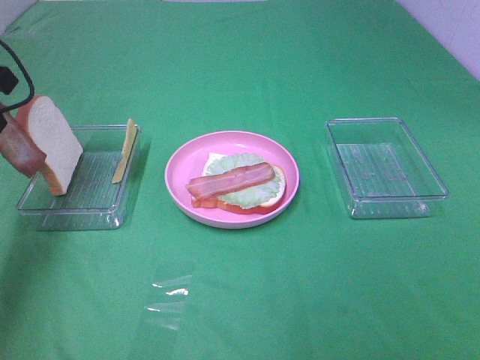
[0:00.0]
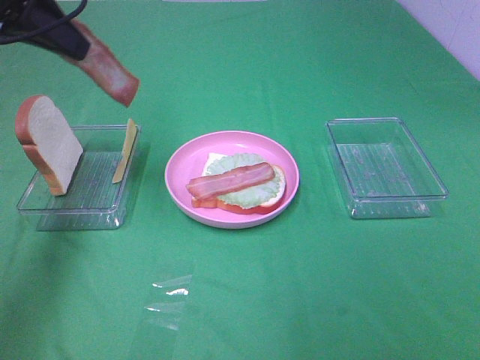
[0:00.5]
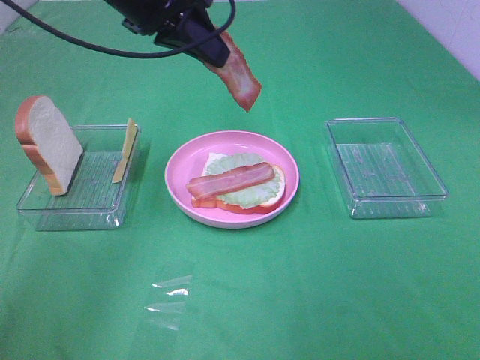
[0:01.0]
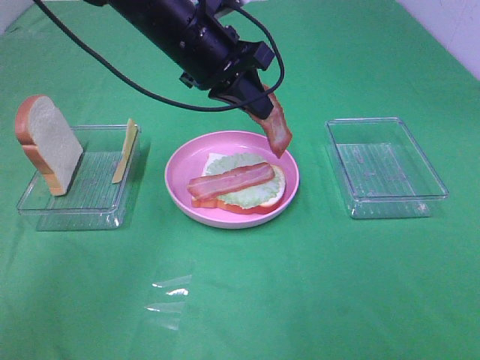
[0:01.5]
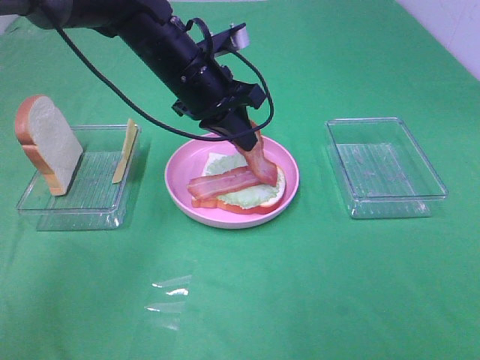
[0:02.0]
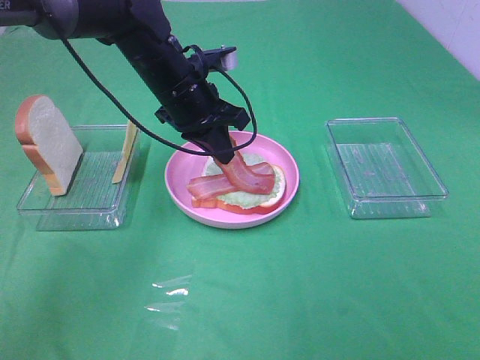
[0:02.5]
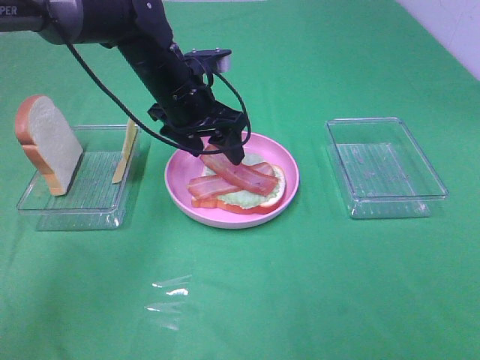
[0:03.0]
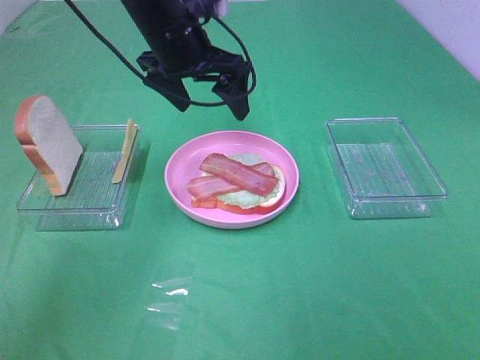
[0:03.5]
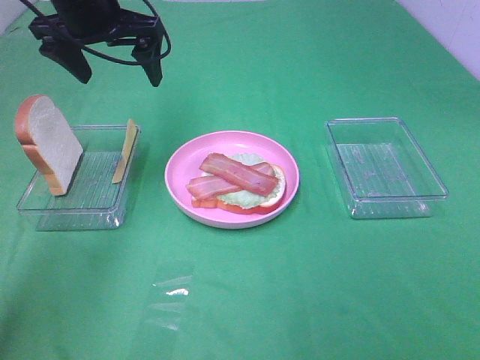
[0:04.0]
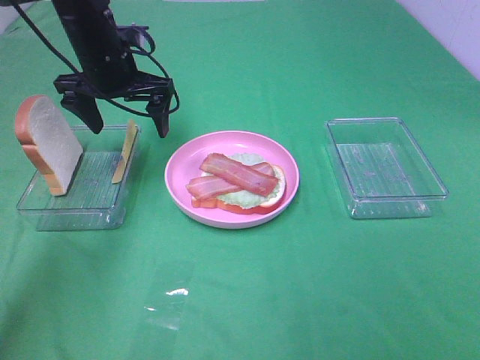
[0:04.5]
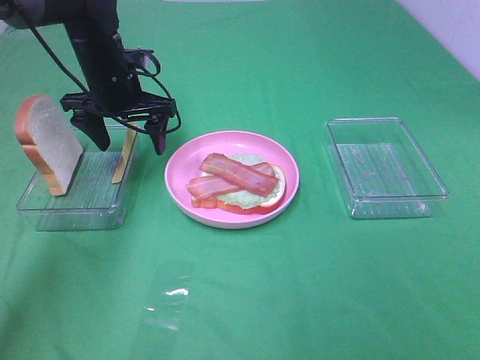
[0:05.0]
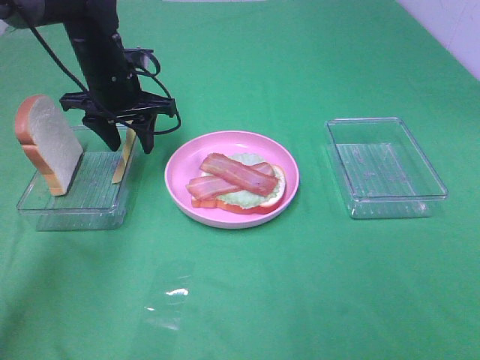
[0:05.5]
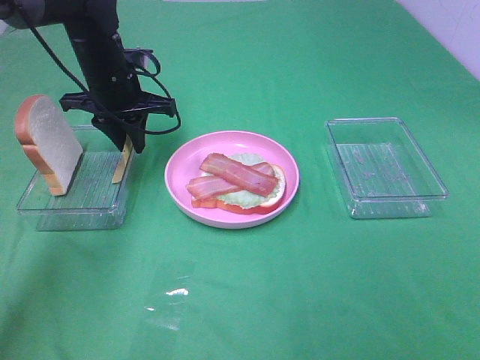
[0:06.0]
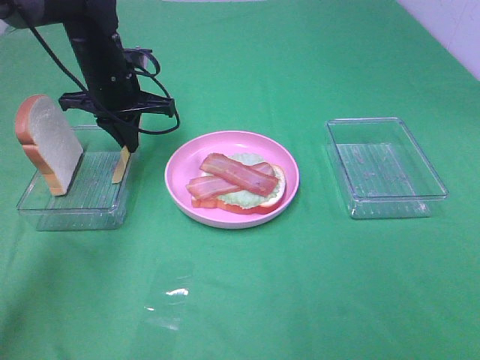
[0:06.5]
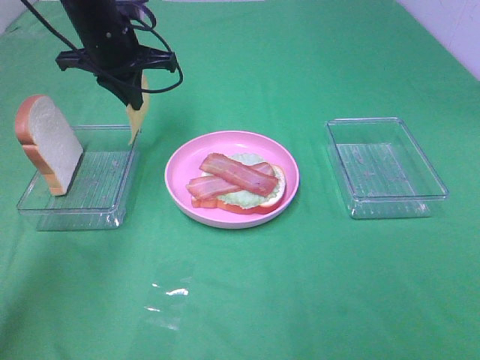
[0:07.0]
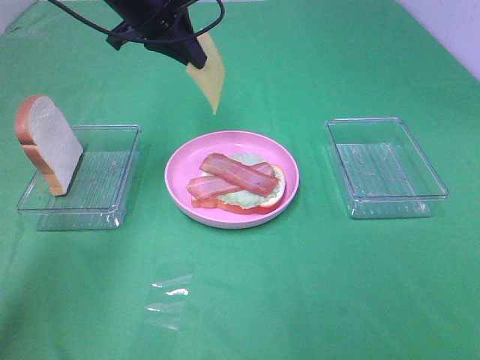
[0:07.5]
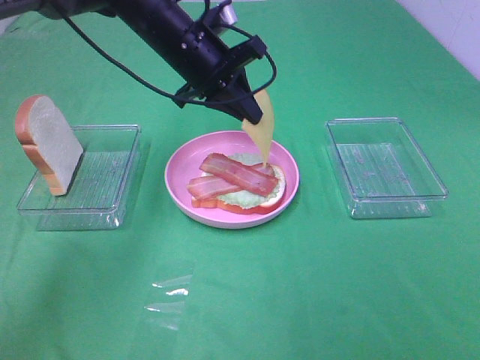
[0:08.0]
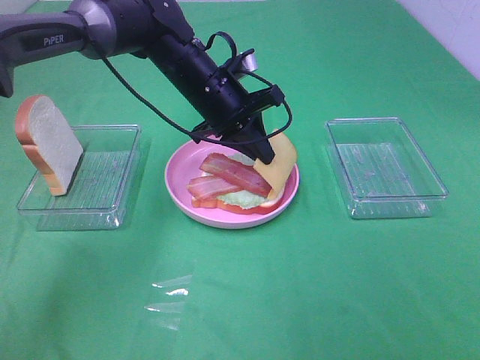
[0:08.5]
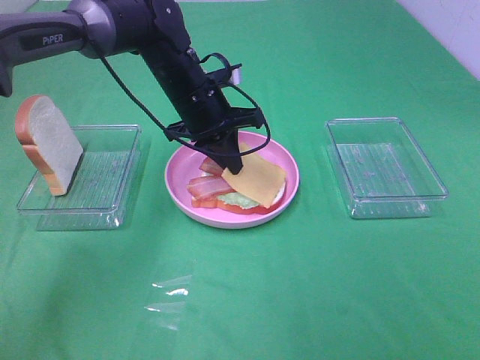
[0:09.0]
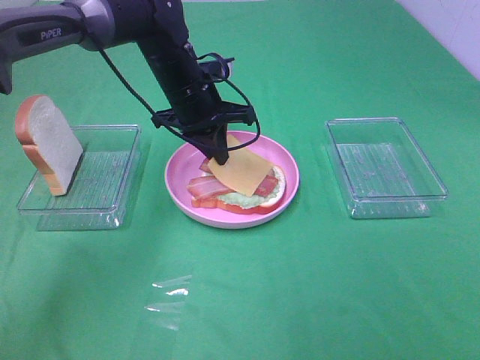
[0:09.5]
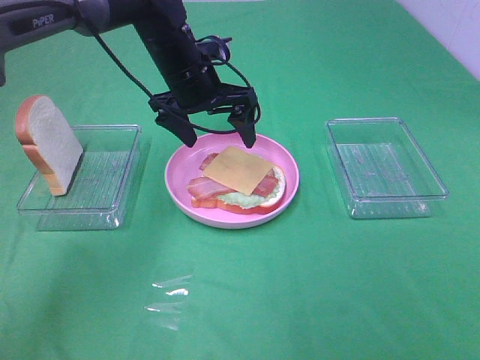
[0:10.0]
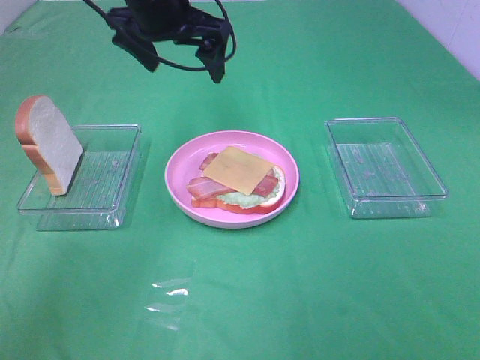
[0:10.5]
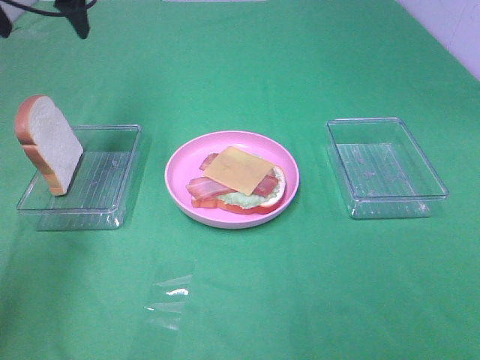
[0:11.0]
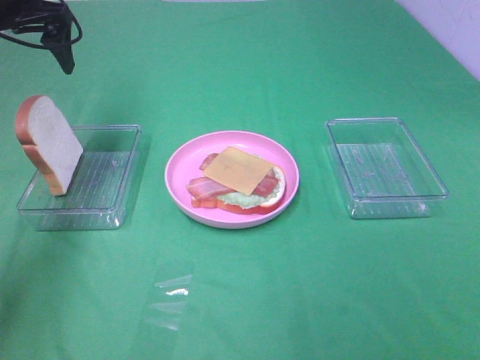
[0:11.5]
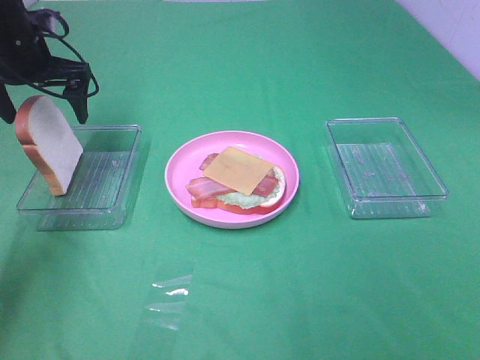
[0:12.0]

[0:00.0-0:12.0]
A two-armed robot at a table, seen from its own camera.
Task of the whole recording: Make sandwiches.
Step, 0:00.0 to 0:03.0: Left hand:place bacon on bacon.
Step, 0:03.5 to 0:06.5: Left hand:grab the cheese slice.
Step, 0:07.0 to 0:09.5: Left hand:place the cheese slice on top of the bacon.
0:00.0 to 0:02.0: The left gripper heads to the right, covering some 25 cm.
0:02.0 to 0:04.0: The left gripper travels to the left and upward by roughly 15 cm, and opens its fingers.
0:04.0 to 0:06.0: The left gripper moves downward, about 10 cm, and closes its fingers.
0:06.0 to 0:08.0: The left gripper shifts some 10 cm to the right, and travels upward and back again, approximately 10 cm each way.
0:08.0 to 0:10.0: The left gripper opens up.
0:10.0 to 0:12.0: The left gripper heads to the left, covering roughly 20 cm.

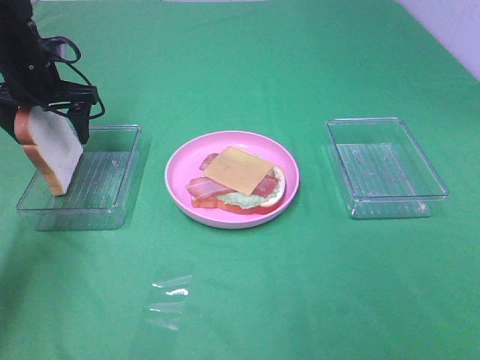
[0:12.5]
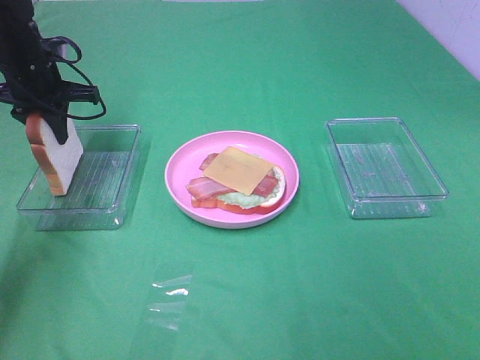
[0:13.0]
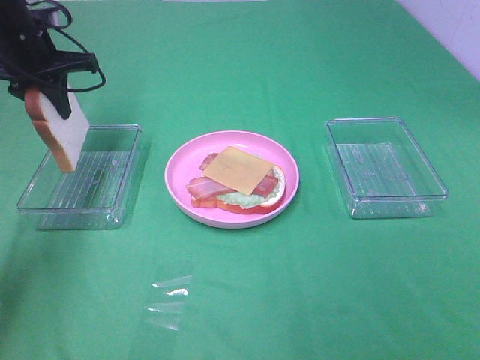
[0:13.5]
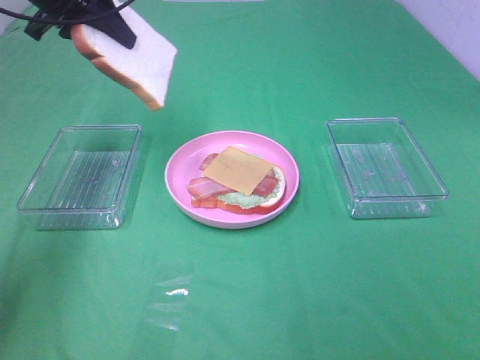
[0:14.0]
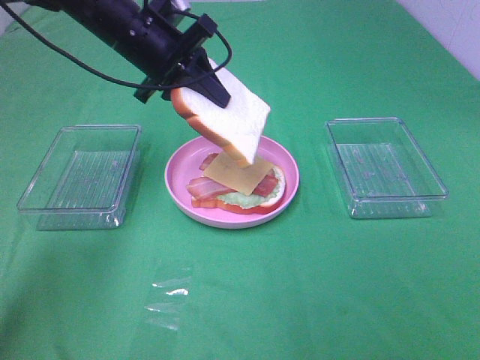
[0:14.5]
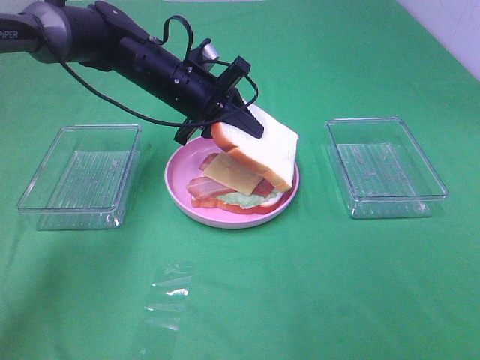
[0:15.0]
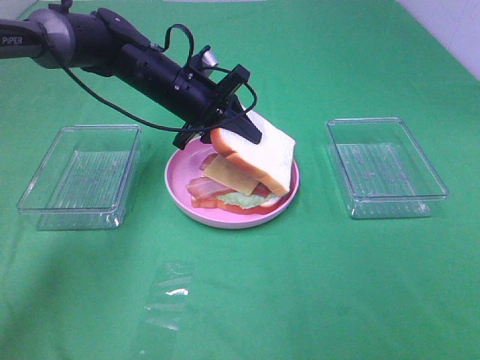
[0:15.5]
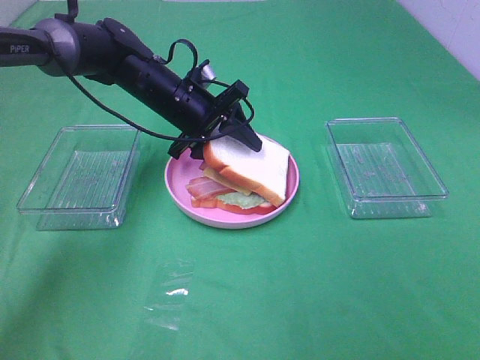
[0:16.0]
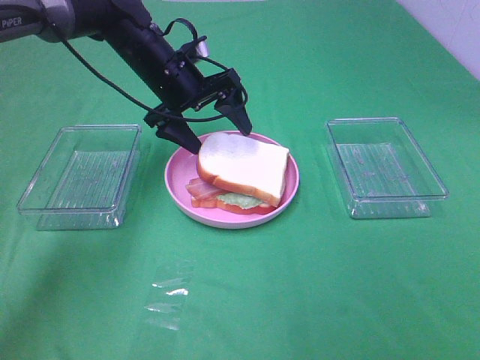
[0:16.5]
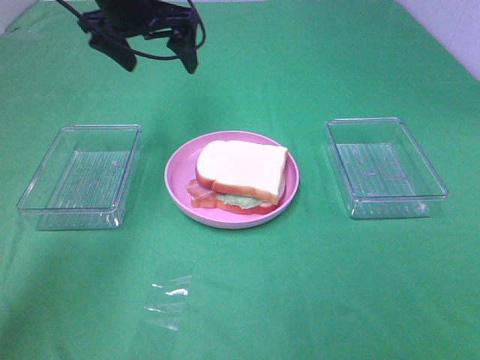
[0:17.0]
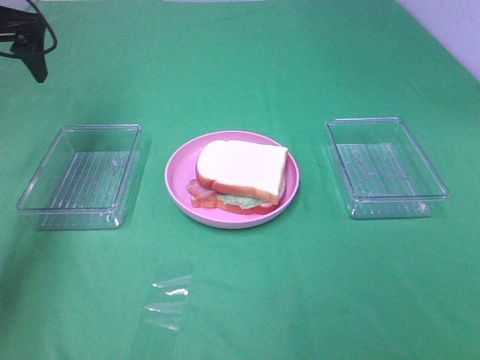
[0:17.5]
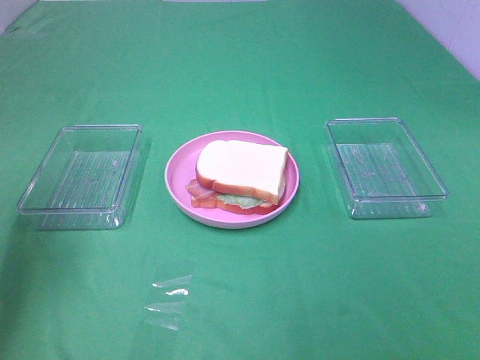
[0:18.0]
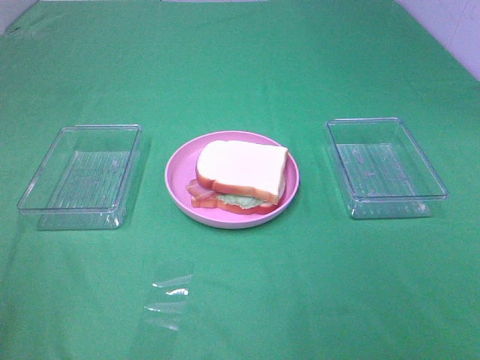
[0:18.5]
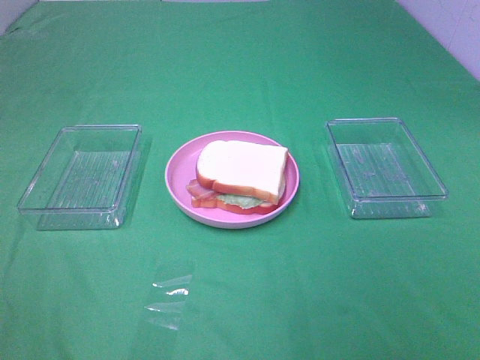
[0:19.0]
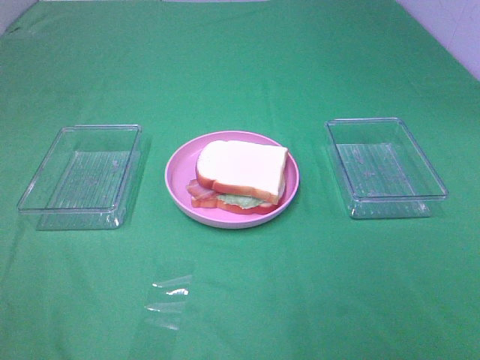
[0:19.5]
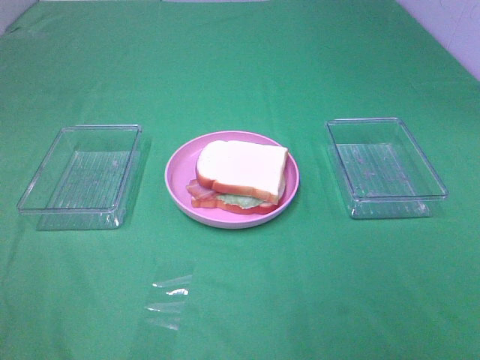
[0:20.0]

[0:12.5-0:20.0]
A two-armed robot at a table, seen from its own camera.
Task of the whole recording: Make sandwiches.
Step, 0:13.5 to 0:16.5: Left hand:place the bread slice on the cheese slice.
0:12.5 to 0:14.5: The left gripper goes some 15 cm to the right, and closes its fingers.
0:14.5 to 0:16.5: The left gripper opens up.
0:16.5 to 0:18.0: The left gripper travels to the left, backward and upward by approximately 30 cm.
0:18.0 to 0:20.0: The left gripper goes some 25 cm backward.

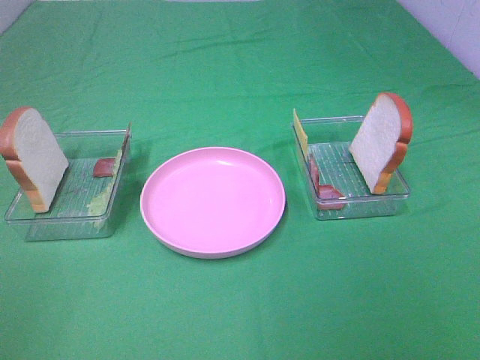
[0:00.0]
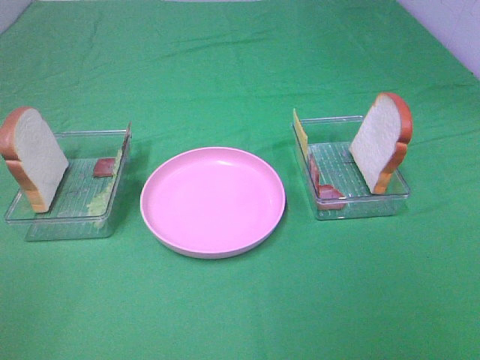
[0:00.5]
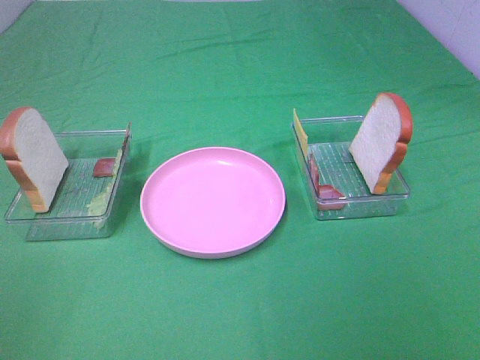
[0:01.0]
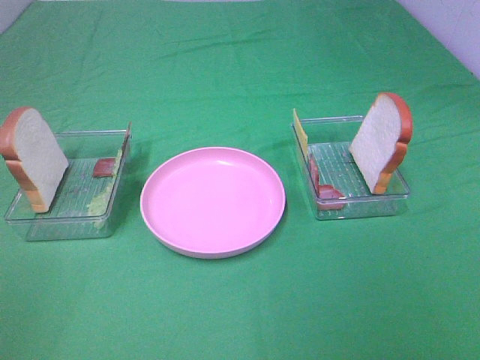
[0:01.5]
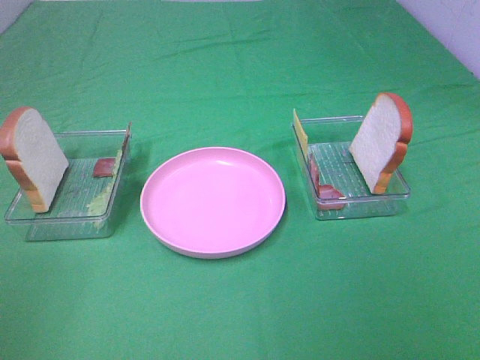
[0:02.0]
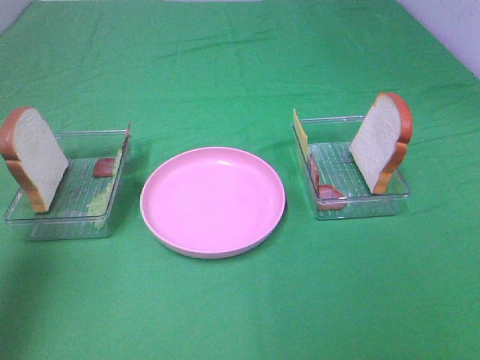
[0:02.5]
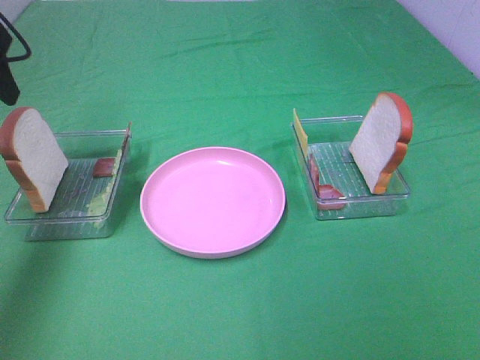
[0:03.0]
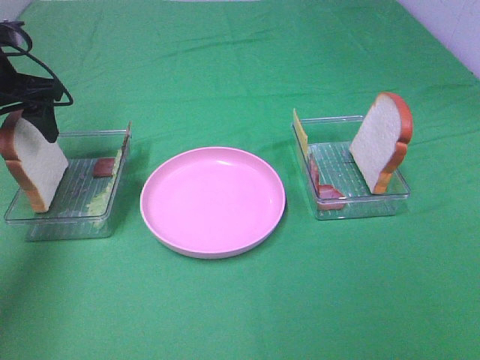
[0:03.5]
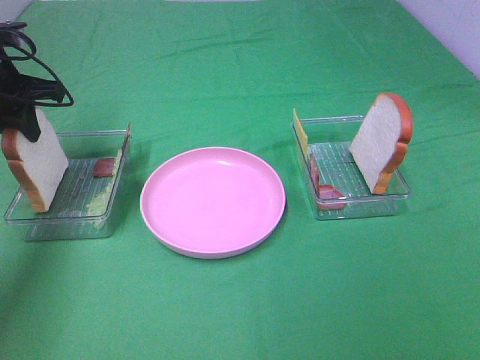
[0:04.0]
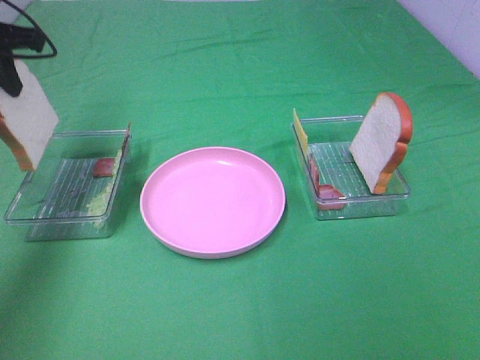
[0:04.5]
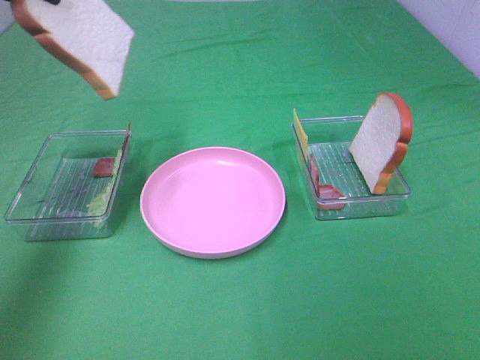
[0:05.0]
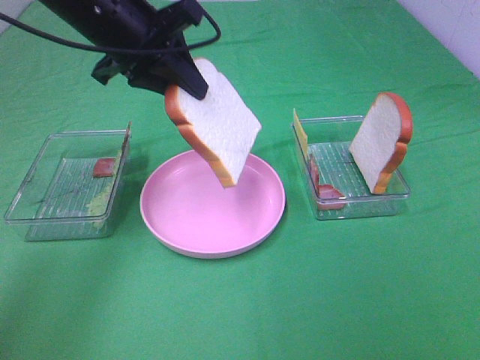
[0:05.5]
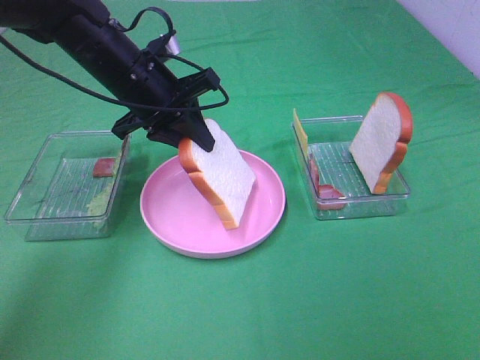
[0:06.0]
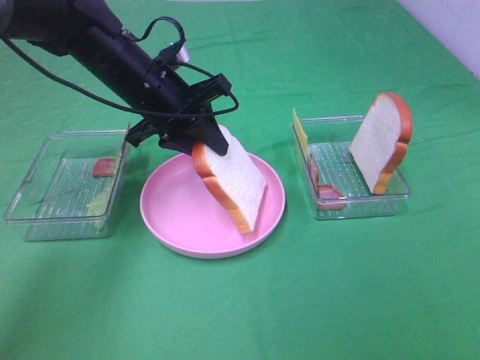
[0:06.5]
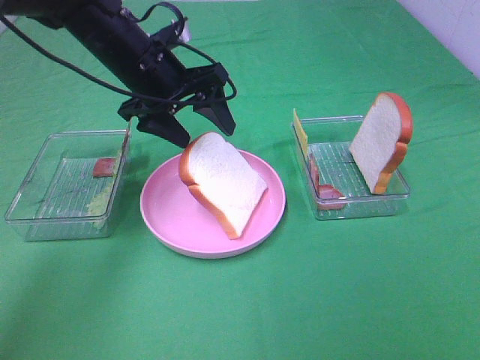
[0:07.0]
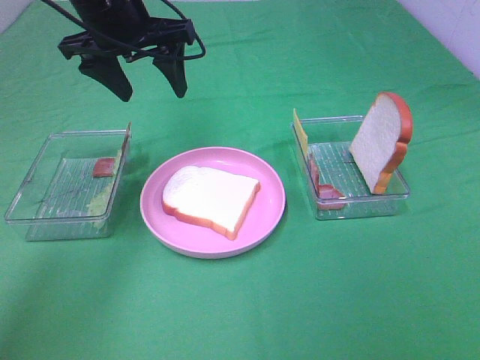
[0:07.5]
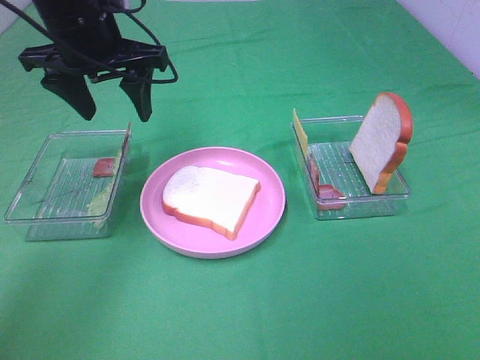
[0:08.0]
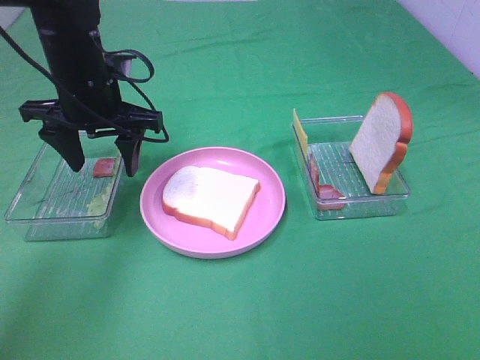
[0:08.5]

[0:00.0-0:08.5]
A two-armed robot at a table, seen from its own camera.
Task of the whole recording: Make sandwiches.
Step, 0:00.0 to 0:04.0: Left hand:grab the bread slice.
Step, 0:04.5 to 0:07.0: Left hand:place the bread slice on the plate.
0:02.0 to 0:04.0: The left gripper goes some 35 cm forward, and closes up.
0:04.0 to 0:06.5: The left gripper goes roughly 20 cm to the right.
0:06.5 to 0:08.5: The left gripper moves to the left, about 5 cm, travels upward and back again, some 10 cm each way, and opens up.
